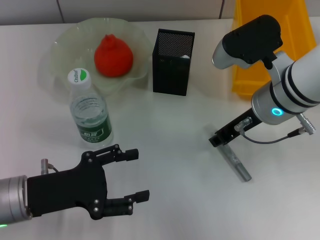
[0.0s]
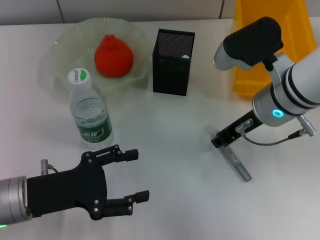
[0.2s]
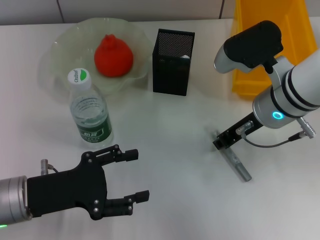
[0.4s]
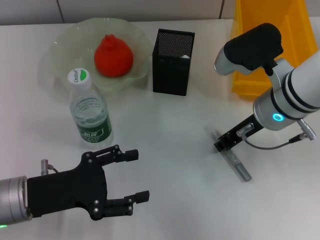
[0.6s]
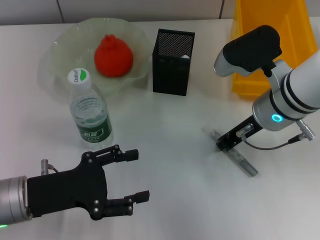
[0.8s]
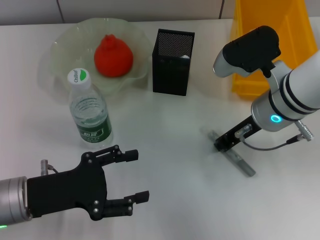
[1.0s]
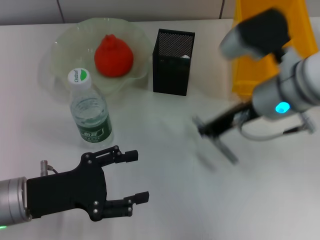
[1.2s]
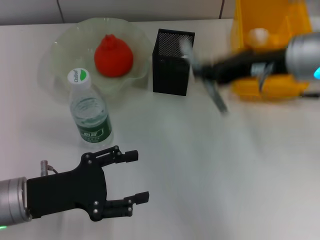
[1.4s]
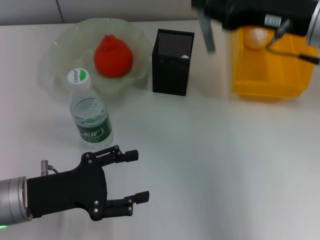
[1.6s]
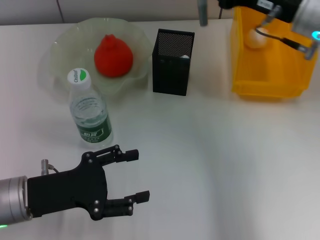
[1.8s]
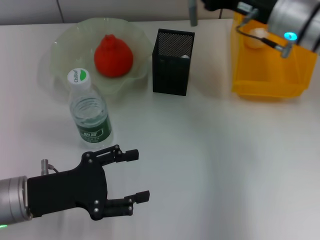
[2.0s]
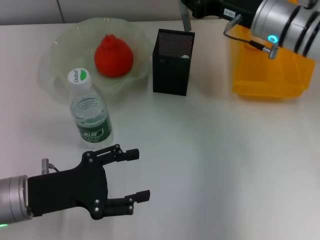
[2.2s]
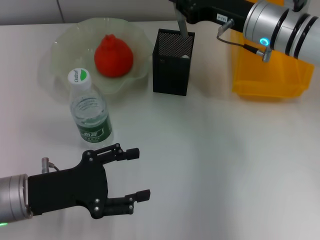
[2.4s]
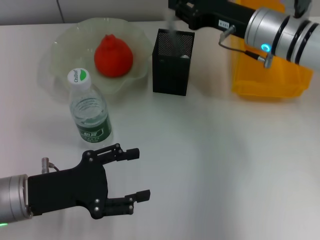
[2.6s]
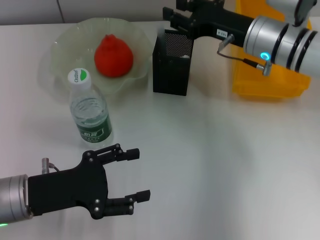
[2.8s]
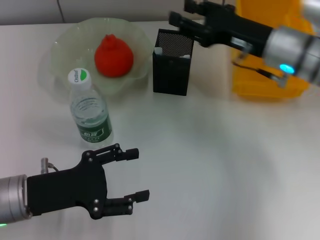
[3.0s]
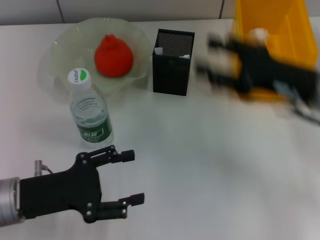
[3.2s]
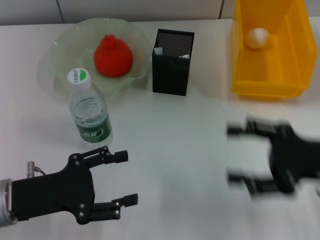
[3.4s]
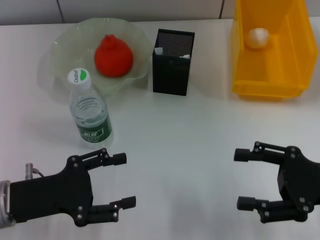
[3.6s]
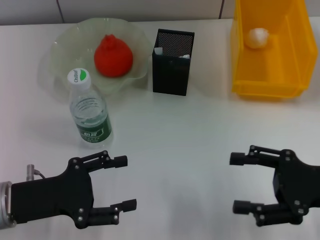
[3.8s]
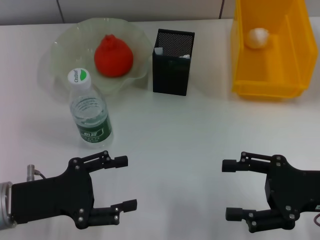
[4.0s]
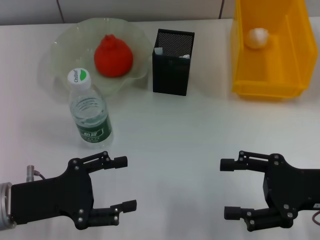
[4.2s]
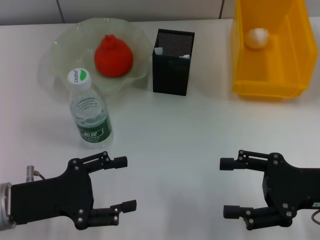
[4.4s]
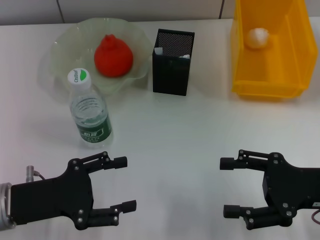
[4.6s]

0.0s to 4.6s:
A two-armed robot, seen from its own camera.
Step, 1.2s to 2.8s: Place the gray glue into the pen holder with the right hand.
0.0s to 1.6s: The right gripper travels upward and to the right by roughly 10 cm, and closes up.
1.6s to 3.0s: The right gripper shifts roughly 10 cm downward, and opens its fingers.
3.0s to 4.6s: The right gripper is displaced backward and to the right by approximately 15 cm, and opens up.

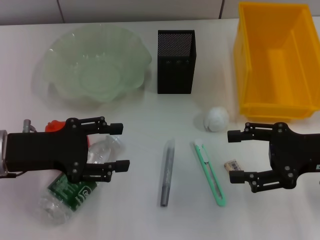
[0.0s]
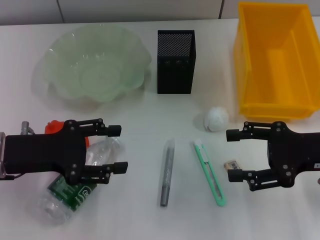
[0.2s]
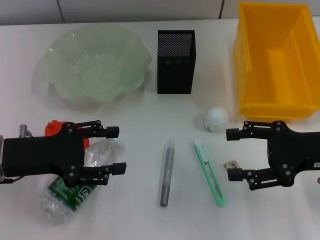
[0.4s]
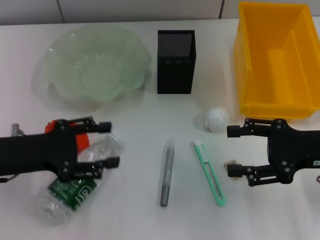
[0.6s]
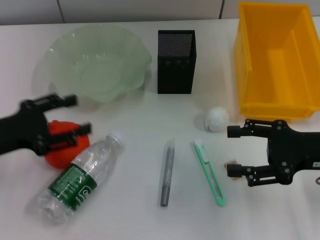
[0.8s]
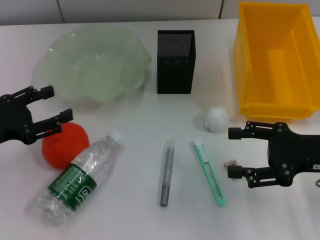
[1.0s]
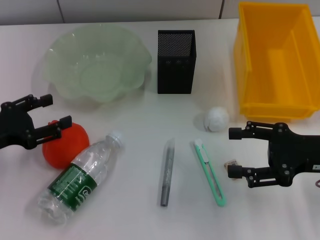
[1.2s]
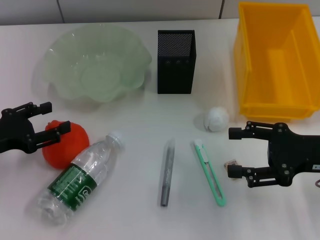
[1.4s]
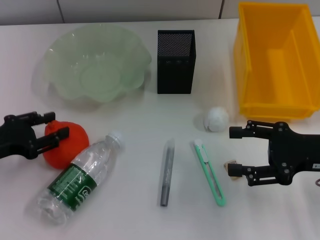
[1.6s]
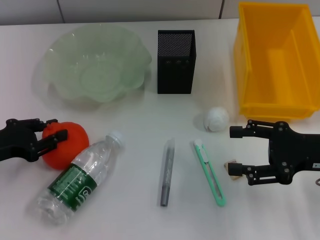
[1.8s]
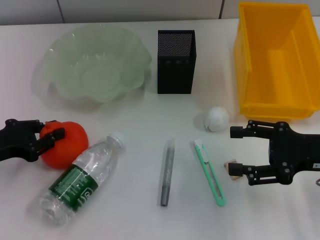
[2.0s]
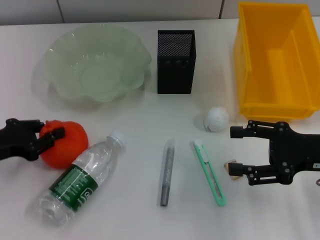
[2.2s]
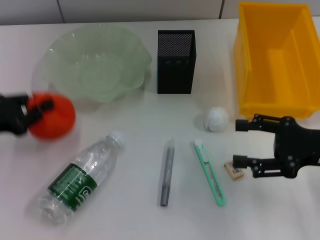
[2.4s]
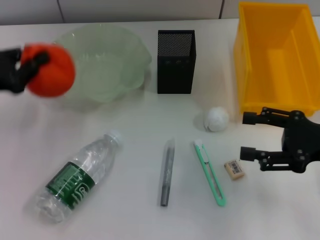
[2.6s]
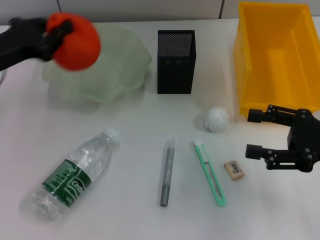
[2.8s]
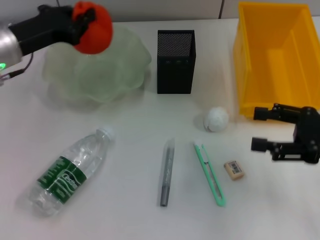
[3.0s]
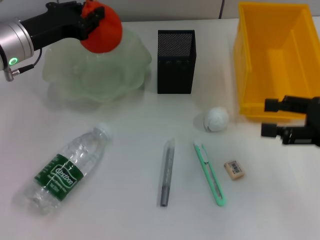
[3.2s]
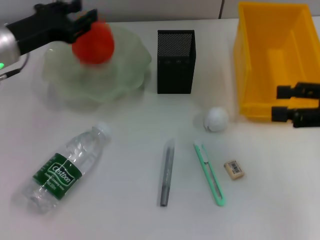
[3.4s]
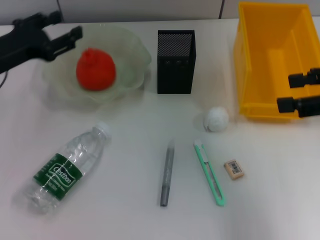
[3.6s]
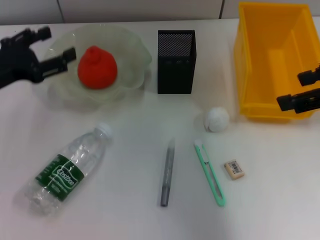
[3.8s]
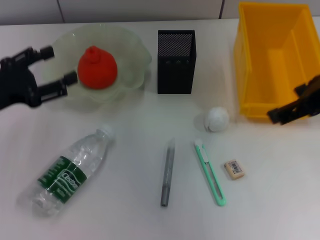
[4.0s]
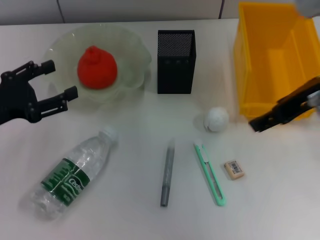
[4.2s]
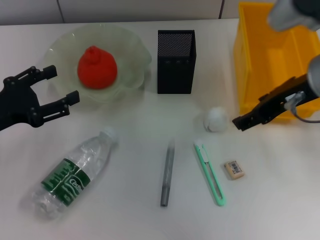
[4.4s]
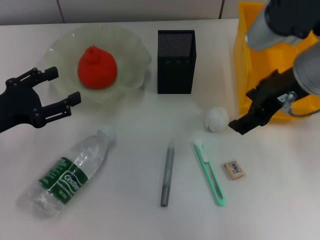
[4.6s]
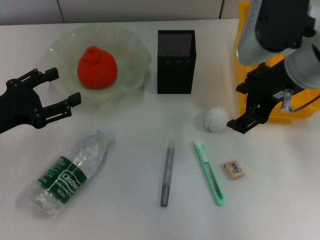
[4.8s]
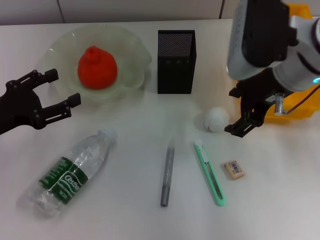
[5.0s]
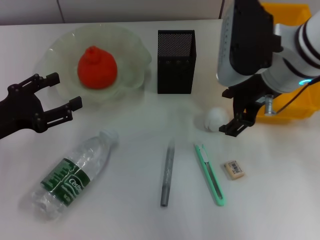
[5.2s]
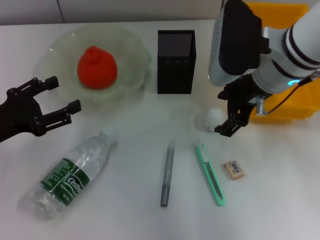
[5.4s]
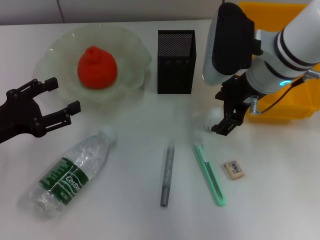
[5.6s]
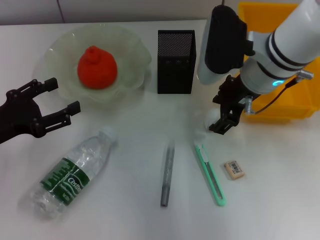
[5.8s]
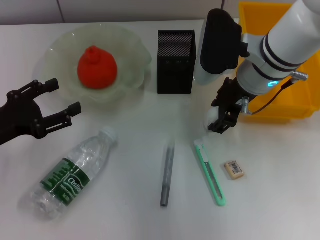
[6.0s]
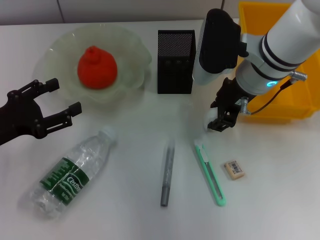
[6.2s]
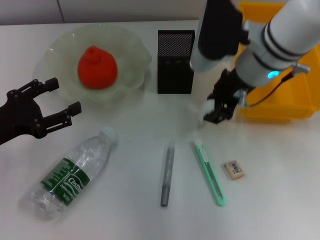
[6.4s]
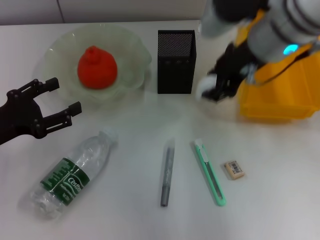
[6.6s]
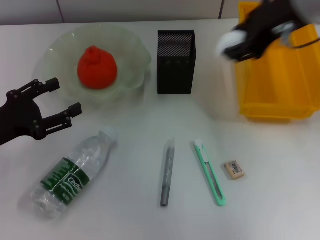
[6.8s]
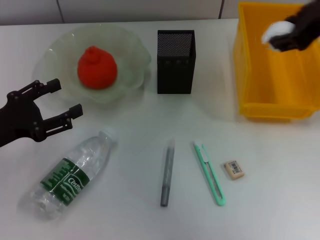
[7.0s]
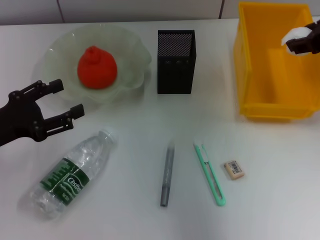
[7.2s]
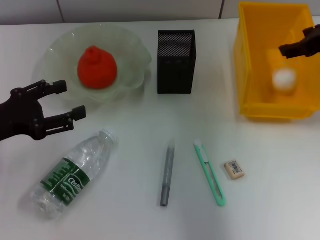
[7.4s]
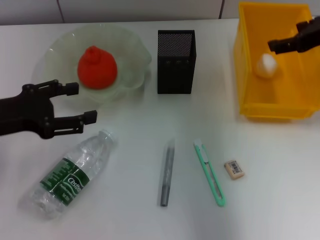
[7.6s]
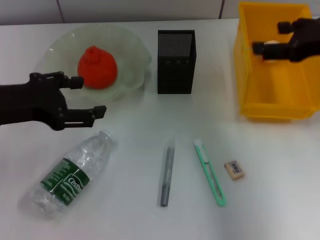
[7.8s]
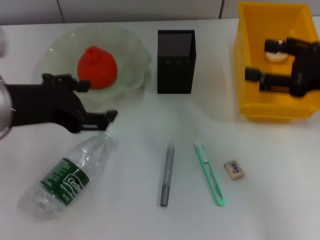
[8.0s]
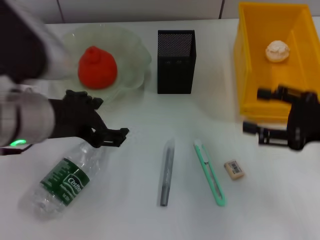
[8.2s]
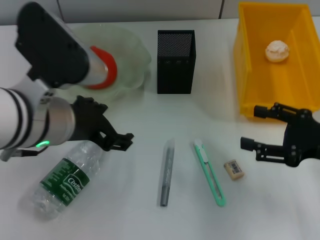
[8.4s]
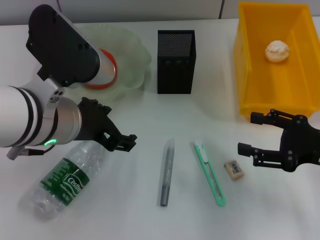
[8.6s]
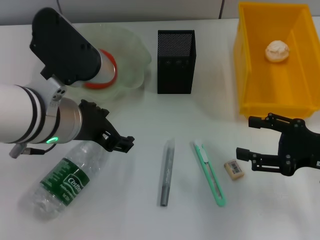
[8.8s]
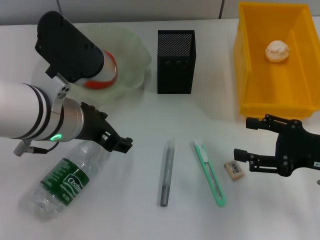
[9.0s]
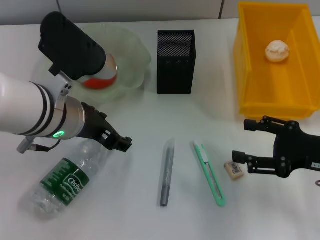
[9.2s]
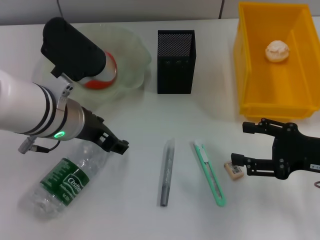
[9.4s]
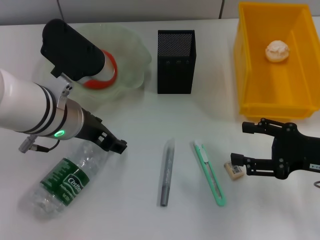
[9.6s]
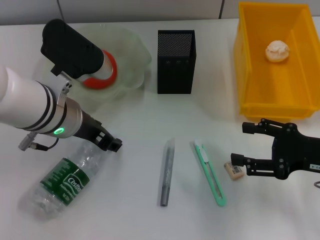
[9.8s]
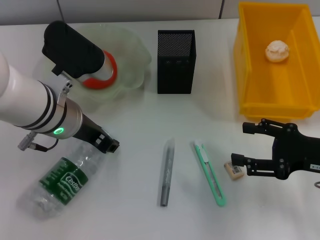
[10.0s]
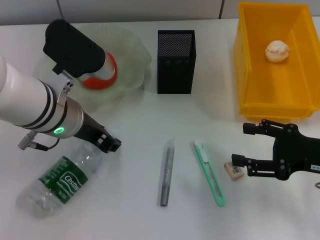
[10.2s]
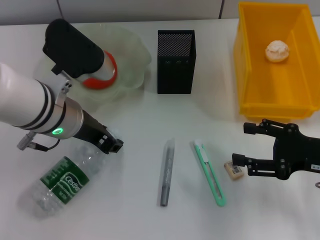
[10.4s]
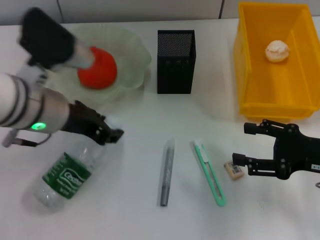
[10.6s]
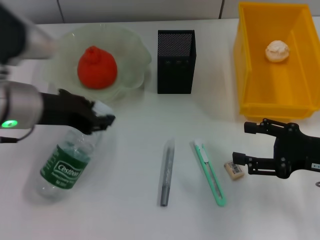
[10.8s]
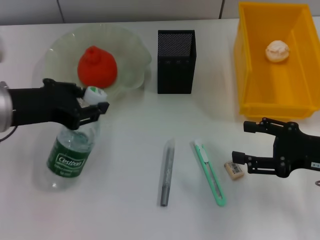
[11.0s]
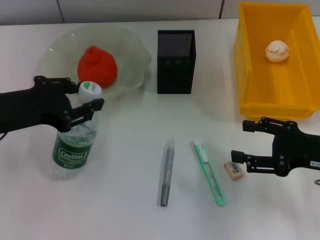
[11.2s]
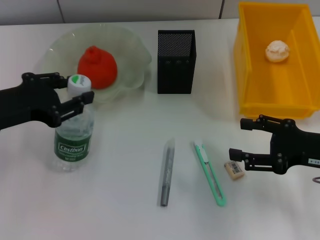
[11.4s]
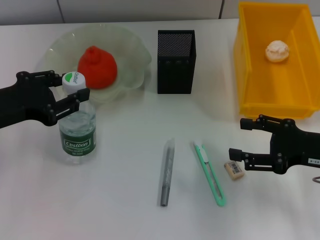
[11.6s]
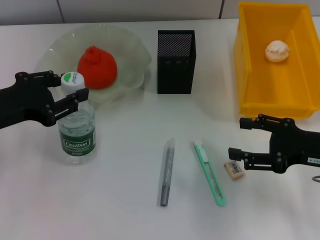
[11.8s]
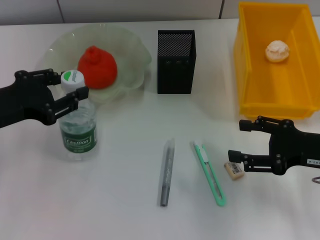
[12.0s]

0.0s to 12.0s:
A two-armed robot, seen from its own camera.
Step, 0.0s to 2.0s: Grab the orange with the left hand.
Step, 2.2s to 3.6s: Place the orange into the fruit bowl with the left hand.
Step, 3.8s to 6.0s: Grab the paper ball with the right hand.
Step, 6.2s to 7.4s: Place the paper ball into the trash can with the right hand.
Step, 7.8s to 10.2s: Grab the water bottle with the left hand.
0.0s to 1.6s: The left gripper shifts roughly 5 cm to the left.
1.6s to 3.0s: The left gripper shifts some 15 cm forward, to the right and upward, and closes its fingers.
3.0s to 4.4s: The right gripper moves to the left, upward and forward, about 15 cm. Meanwhile the left gripper heads backward and to the left, covering about 15 cm, and opens its fingers.
4.4s to 6.0s: The right gripper travels forward, downward and to the left by roughly 10 cm.
6.0s to 7.6s: The left gripper moves upward, approximately 5 cm; the right gripper goes approximately 15 cm to the right and upward.
7.6s to 9.0s: The right gripper goes about 20 cm downward and backward; the left gripper goes about 15 cm to the right.
9.0s to 10.4s: The left gripper closes up.
10.4s to 12.0s: The left gripper shifts approximately 15 cm to the left.

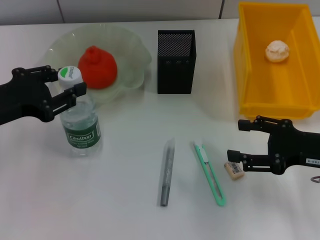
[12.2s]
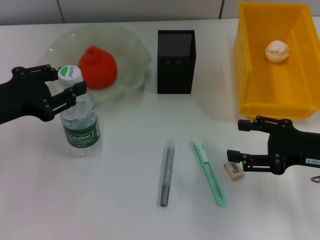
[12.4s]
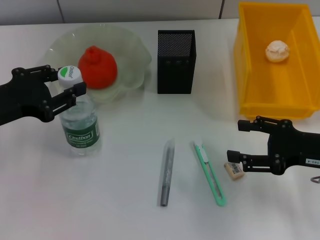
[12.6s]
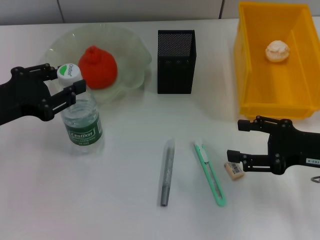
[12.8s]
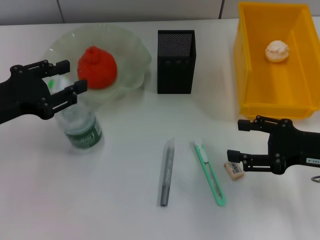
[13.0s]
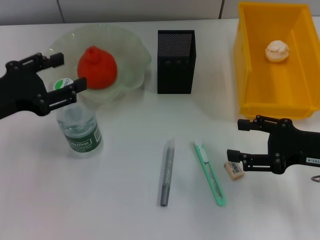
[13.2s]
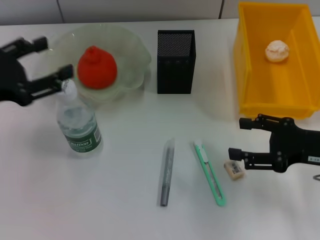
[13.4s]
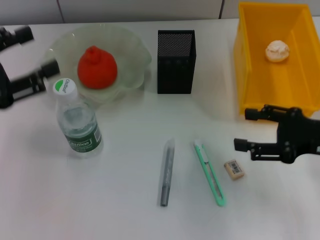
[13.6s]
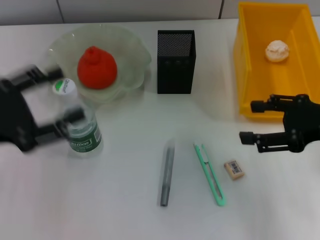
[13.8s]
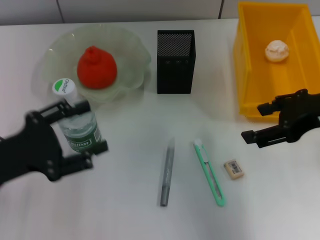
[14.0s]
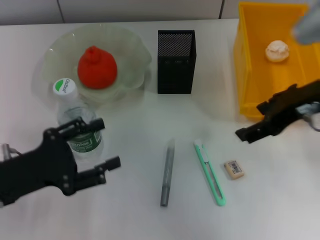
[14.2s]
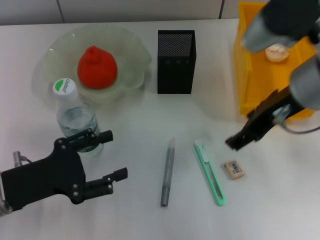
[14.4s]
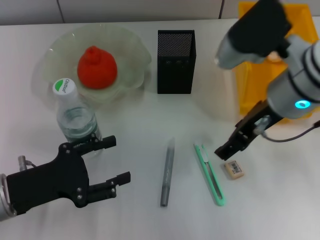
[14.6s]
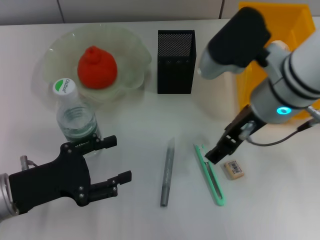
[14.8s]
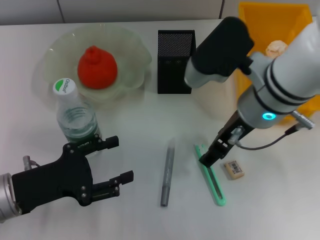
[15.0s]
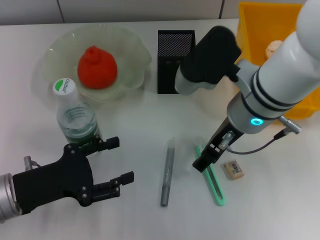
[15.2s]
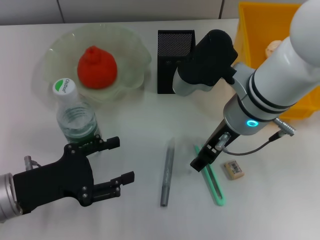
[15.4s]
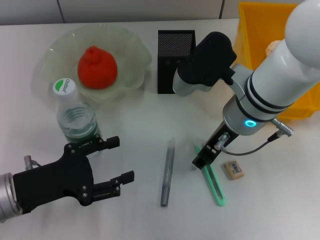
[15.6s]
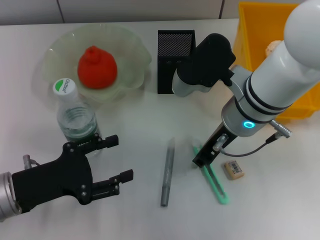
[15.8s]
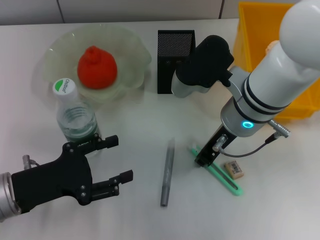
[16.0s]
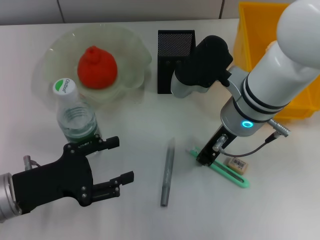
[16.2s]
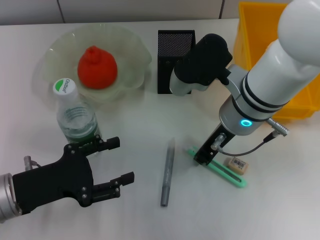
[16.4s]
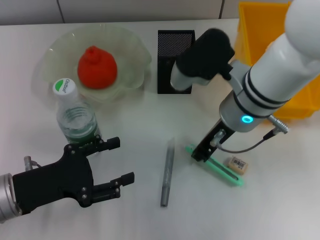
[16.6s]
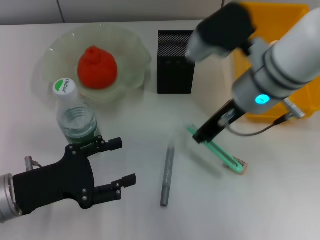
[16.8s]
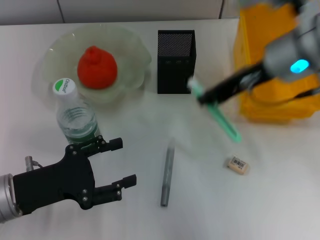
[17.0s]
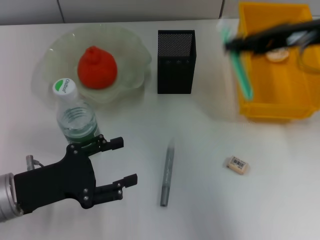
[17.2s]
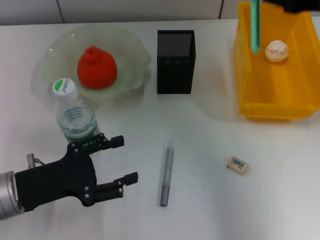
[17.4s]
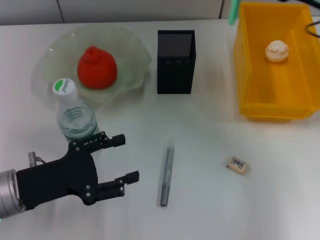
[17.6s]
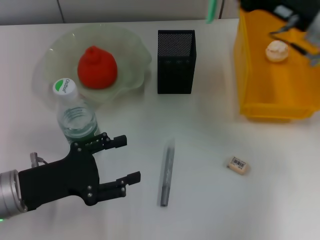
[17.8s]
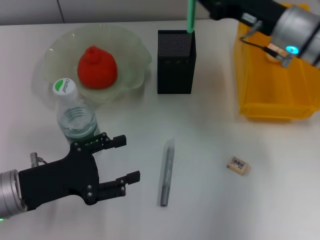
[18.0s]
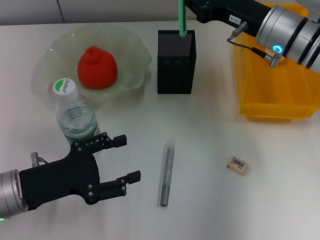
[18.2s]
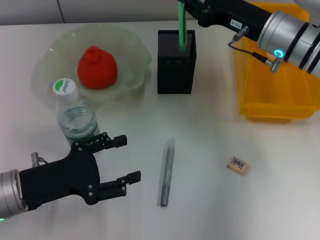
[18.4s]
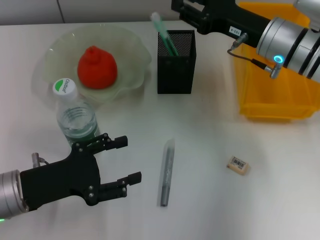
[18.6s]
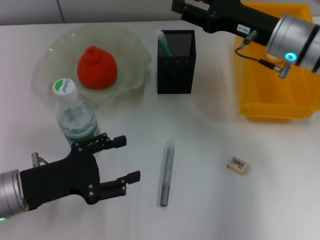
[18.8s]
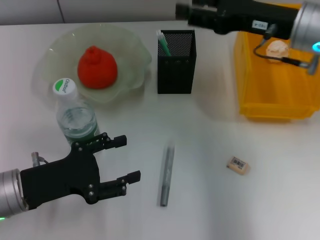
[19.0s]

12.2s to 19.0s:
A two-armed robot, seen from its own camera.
Step, 13.6s to 16.0s: Grab the blue utility knife with the right hand.
Step, 16.2s to 18.6s: Place the blue utility knife into the pen holder with the right hand.
12.2s to 13.6s: The left gripper shifts by approximately 5 cm, and opens.
13.6s to 15.0s: The left gripper is displaced downward and to the right by about 15 cm. The right gripper goes approximately 15 cm to the left.
15.0s to 16.2s: The right gripper closes its fingers.
16.2s to 17.6s: The right gripper is displaced to the right and upward by about 15 cm.
17.6s to 19.0s: The right gripper is displaced to the left by about 5 cm, and opens up.
